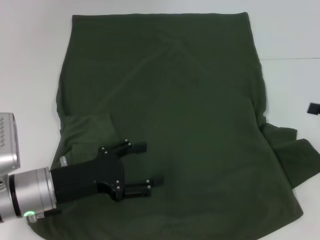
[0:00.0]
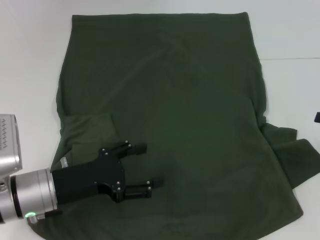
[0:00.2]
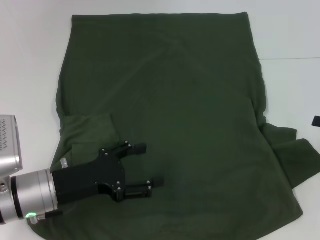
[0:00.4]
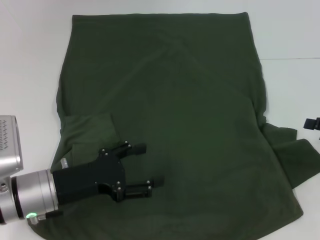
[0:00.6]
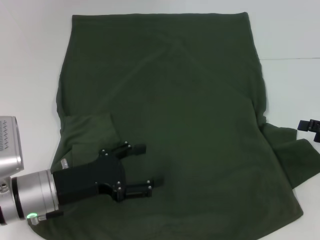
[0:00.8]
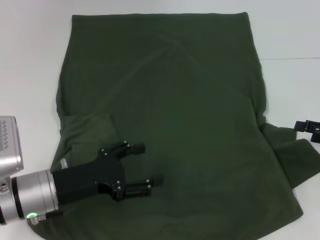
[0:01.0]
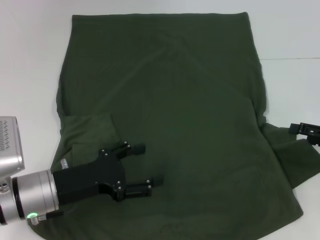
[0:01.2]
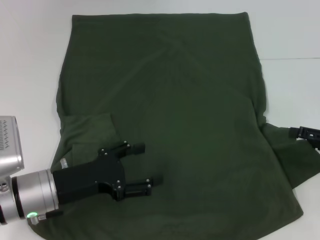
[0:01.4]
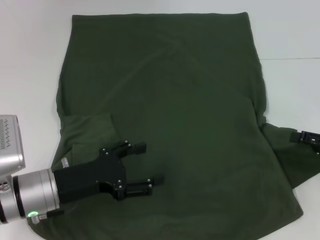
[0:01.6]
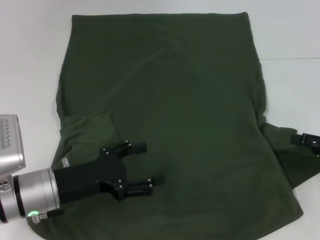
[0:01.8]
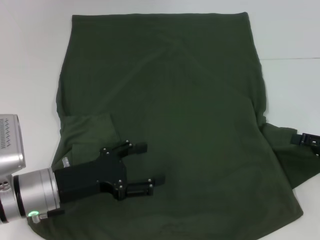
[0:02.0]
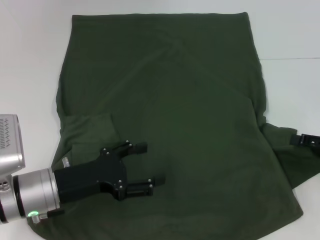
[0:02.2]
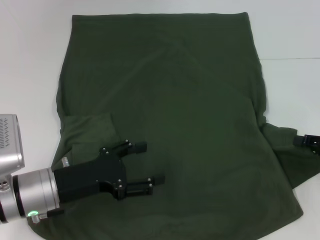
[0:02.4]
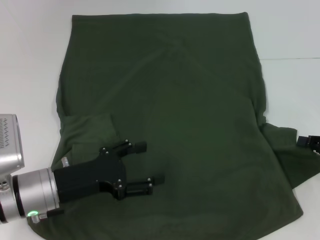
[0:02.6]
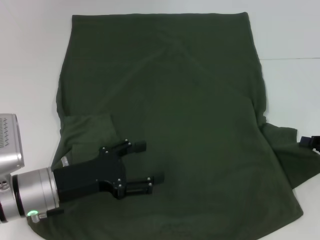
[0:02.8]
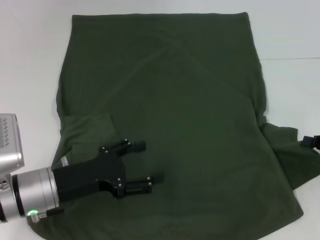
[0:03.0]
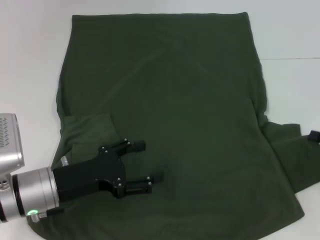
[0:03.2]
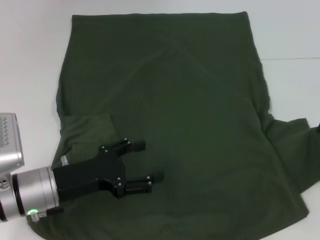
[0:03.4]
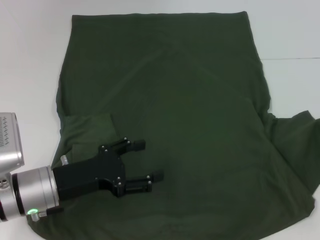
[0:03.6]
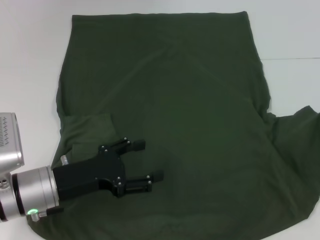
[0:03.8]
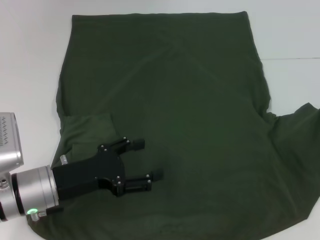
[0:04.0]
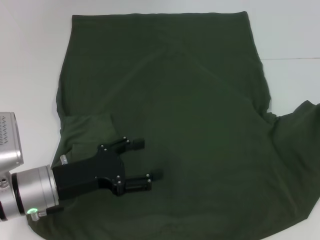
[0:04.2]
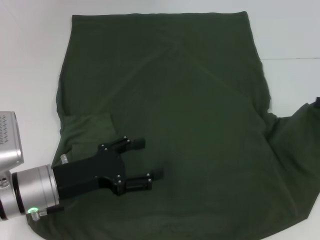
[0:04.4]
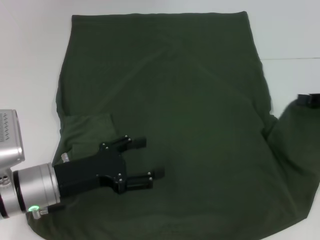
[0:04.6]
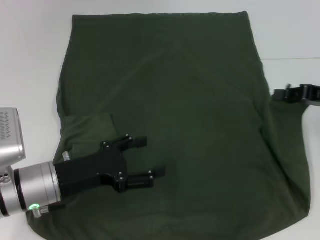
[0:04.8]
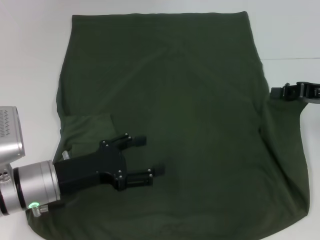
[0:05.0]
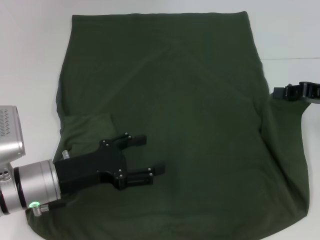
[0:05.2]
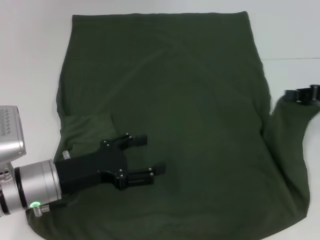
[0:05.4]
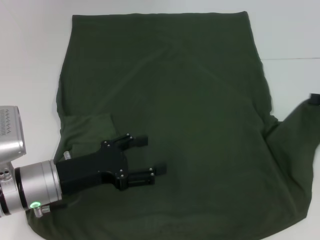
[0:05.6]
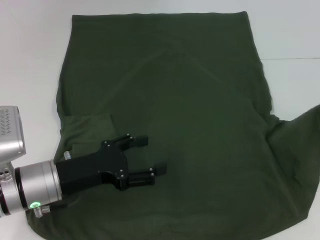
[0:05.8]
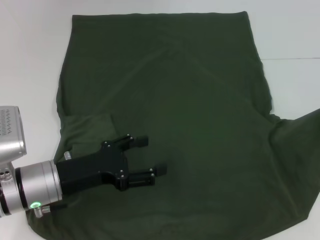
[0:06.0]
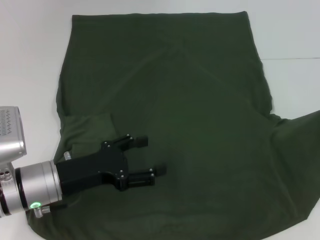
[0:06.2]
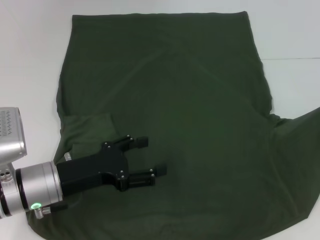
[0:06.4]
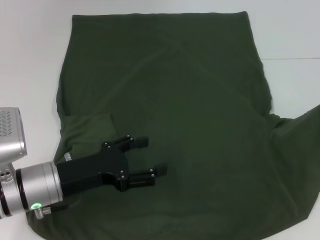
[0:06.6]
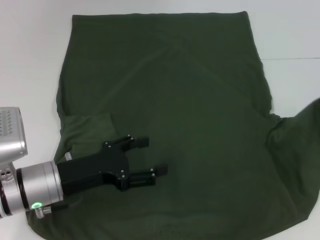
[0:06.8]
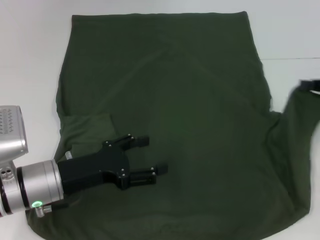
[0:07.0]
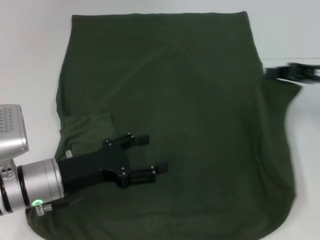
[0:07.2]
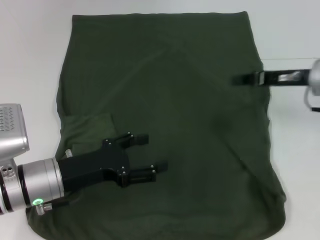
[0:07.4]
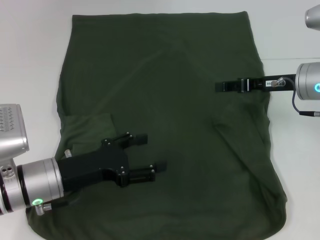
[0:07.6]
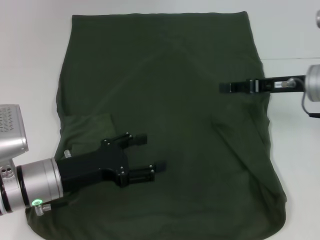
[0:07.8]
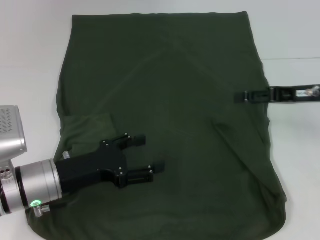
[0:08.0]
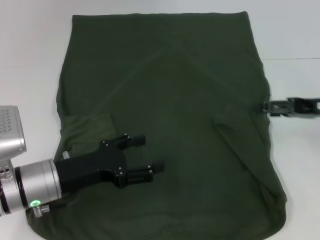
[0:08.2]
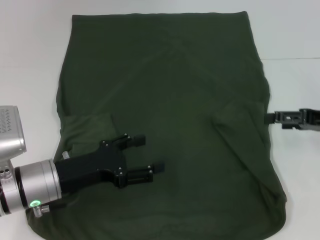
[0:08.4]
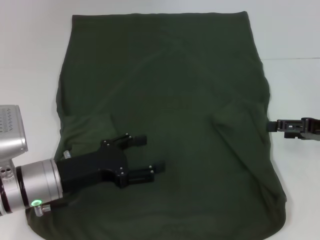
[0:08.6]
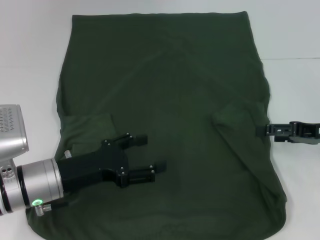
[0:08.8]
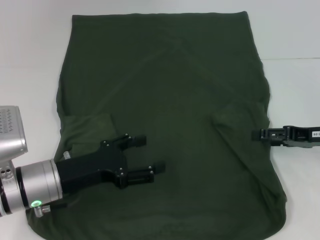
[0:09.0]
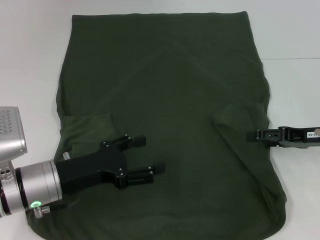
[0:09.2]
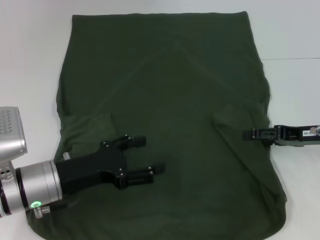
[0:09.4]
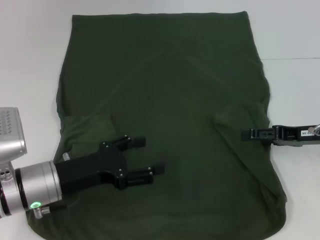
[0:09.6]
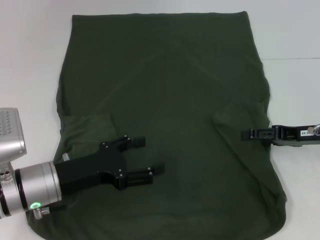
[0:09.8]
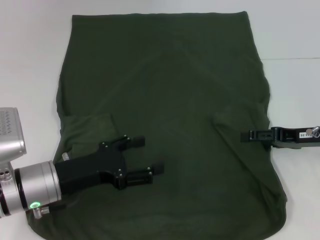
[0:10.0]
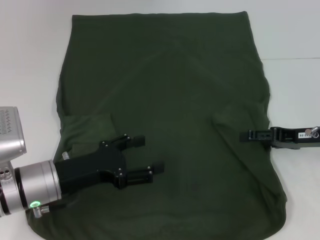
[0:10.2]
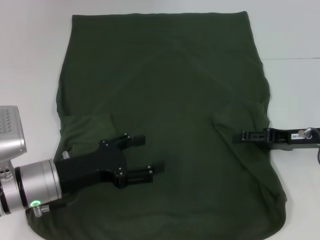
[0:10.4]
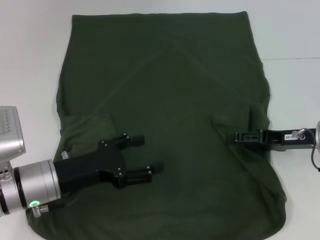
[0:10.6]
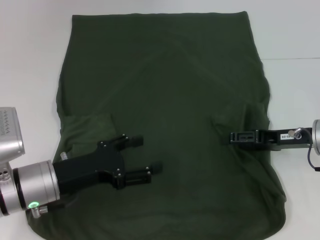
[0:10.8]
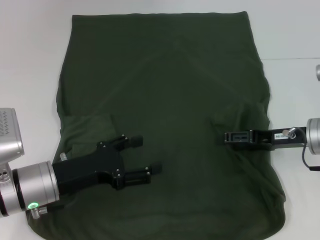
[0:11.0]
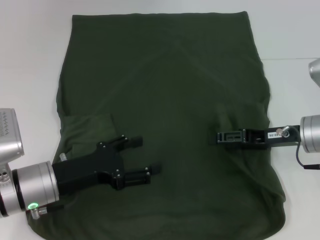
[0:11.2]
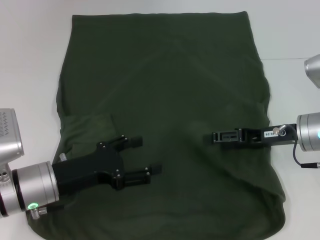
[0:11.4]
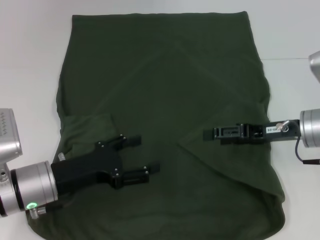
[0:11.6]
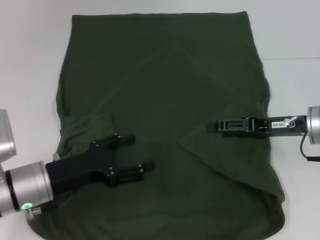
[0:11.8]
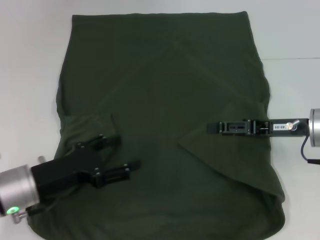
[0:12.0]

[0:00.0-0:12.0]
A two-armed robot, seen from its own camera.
Step, 0:00.0 to 0:11.4: Fold the bottom right sleeve with your right hand.
0:00.0 to 0:01.6: There are only small adjustments of the grippers.
0:03.0 to 0:04.4: The right gripper shifts some 5 cm upward.
0:04.4 to 0:06.0: The right gripper moves some 5 cm to the left and comes back.
0:06.0 to 0:07.6: The right gripper is displaced to the left and forward by roughly 20 cm.
0:07.6 to 0:09.0: The right gripper is displaced to the right and backward by some 10 cm, and opens its fingers.
0:09.0 to 0:10.4: The grippers stay close to where they were, moving slightly.
0:10.4 to 0:12.0: The grippers stay close to where they were, moving slightly.

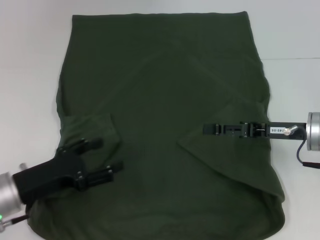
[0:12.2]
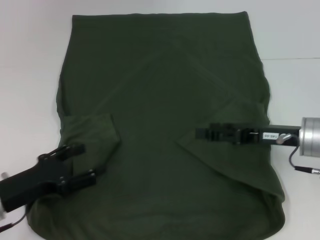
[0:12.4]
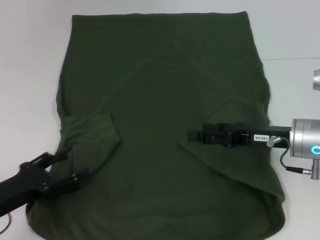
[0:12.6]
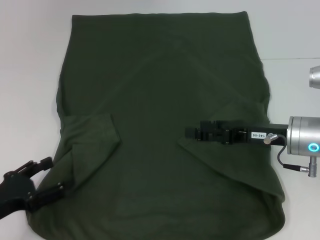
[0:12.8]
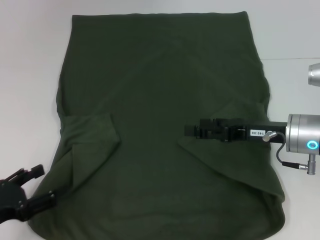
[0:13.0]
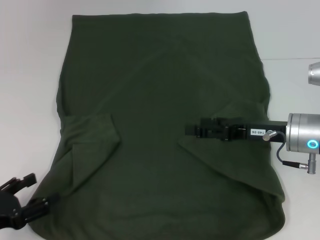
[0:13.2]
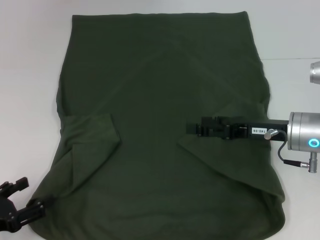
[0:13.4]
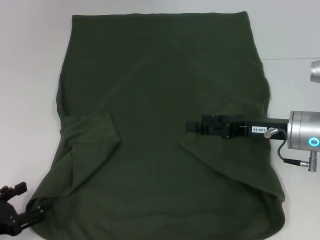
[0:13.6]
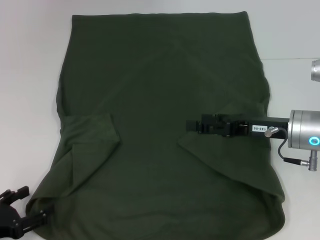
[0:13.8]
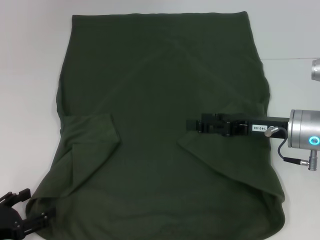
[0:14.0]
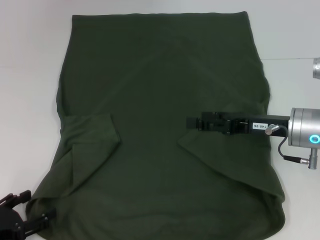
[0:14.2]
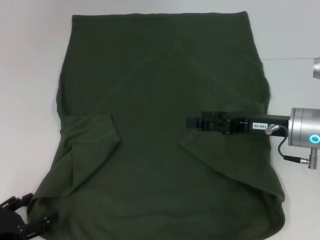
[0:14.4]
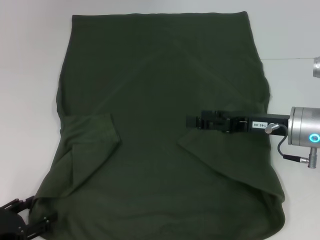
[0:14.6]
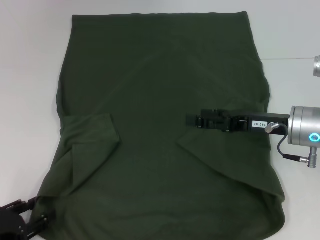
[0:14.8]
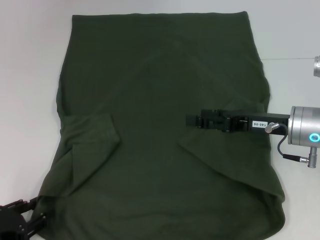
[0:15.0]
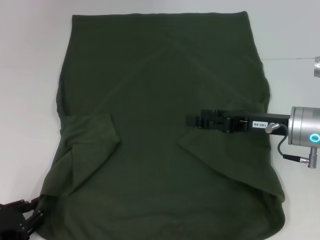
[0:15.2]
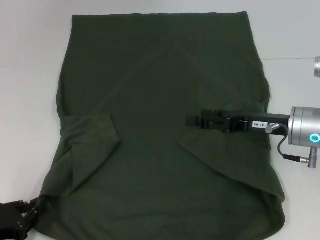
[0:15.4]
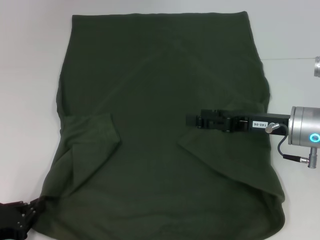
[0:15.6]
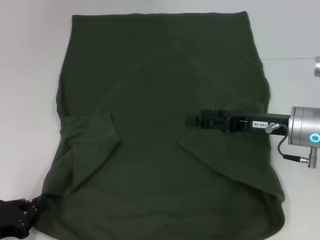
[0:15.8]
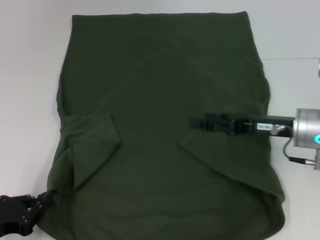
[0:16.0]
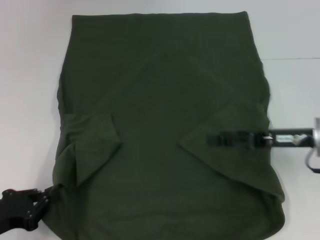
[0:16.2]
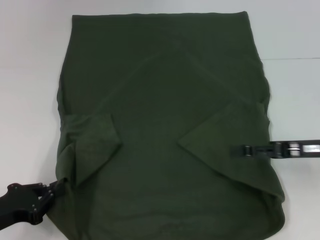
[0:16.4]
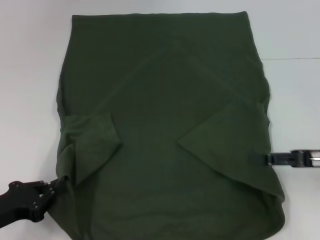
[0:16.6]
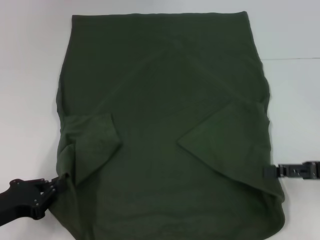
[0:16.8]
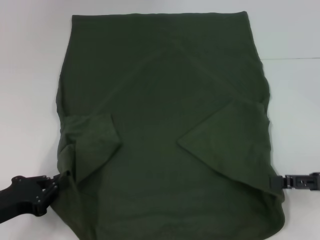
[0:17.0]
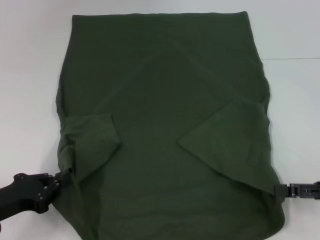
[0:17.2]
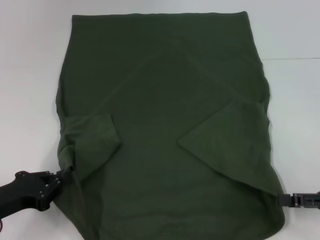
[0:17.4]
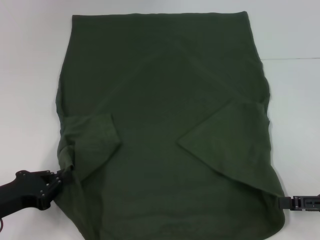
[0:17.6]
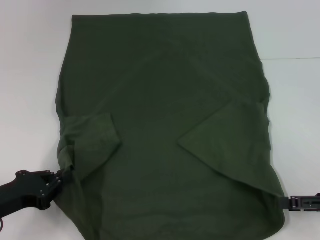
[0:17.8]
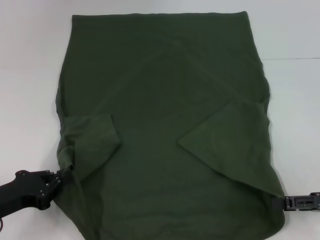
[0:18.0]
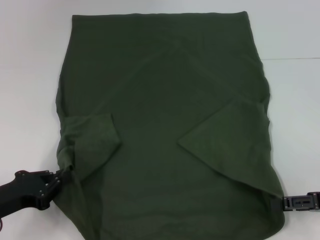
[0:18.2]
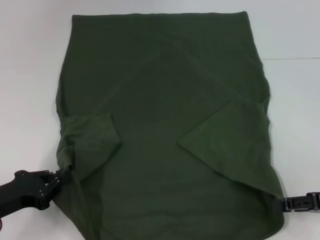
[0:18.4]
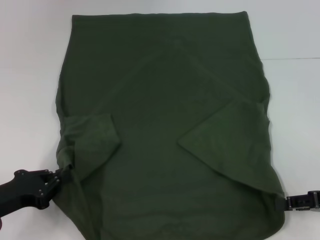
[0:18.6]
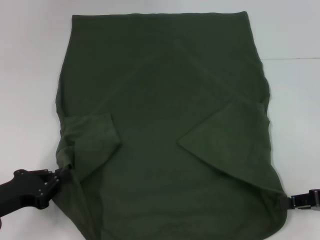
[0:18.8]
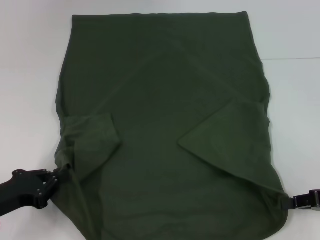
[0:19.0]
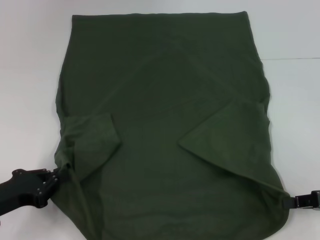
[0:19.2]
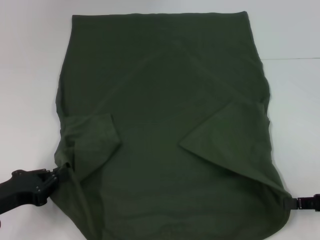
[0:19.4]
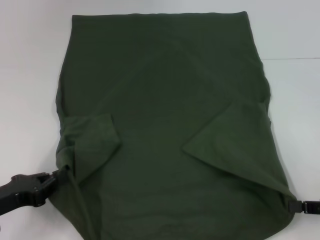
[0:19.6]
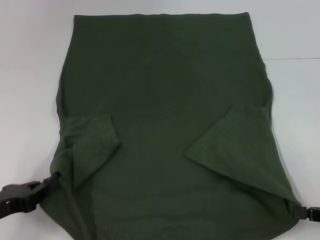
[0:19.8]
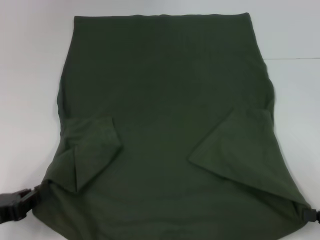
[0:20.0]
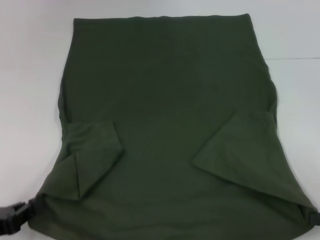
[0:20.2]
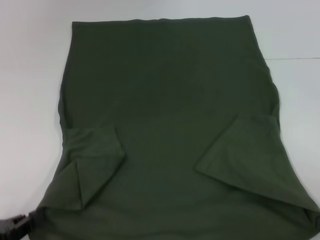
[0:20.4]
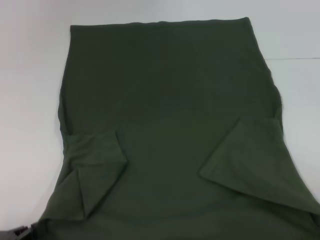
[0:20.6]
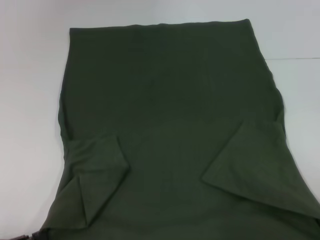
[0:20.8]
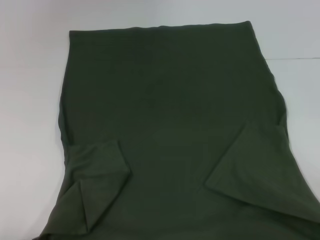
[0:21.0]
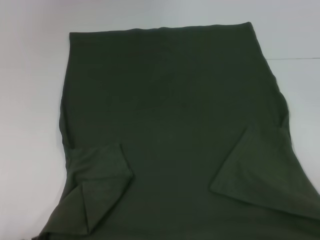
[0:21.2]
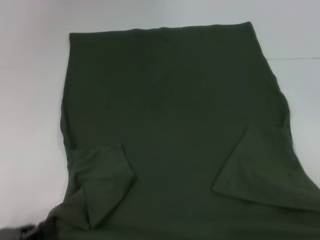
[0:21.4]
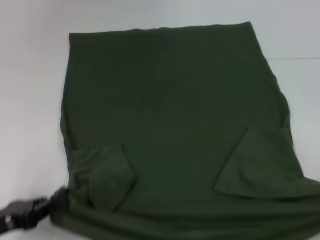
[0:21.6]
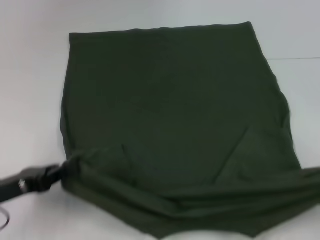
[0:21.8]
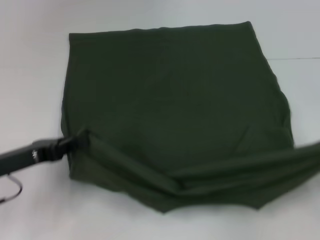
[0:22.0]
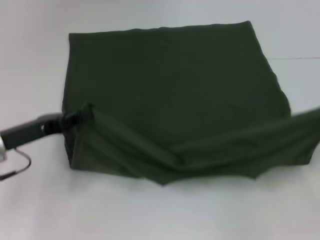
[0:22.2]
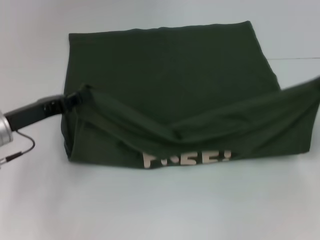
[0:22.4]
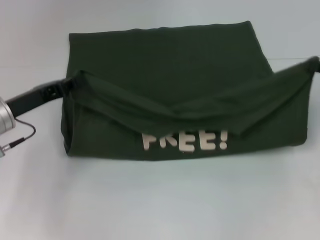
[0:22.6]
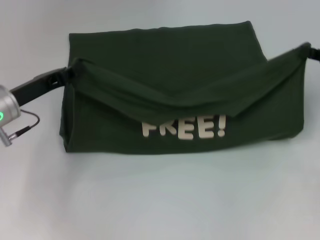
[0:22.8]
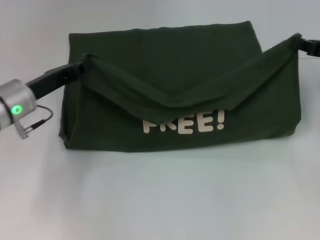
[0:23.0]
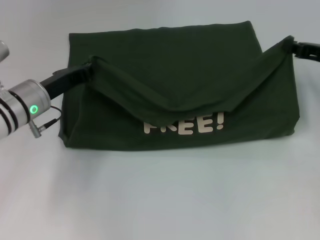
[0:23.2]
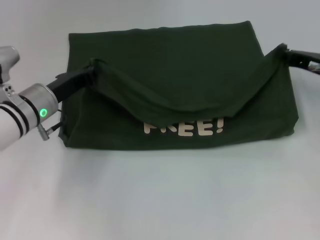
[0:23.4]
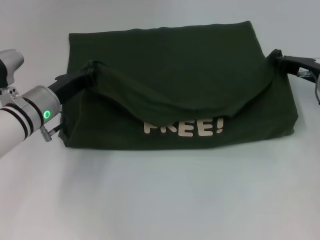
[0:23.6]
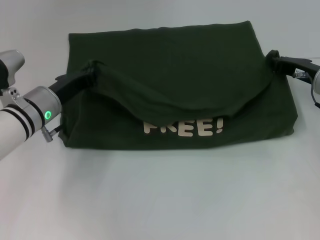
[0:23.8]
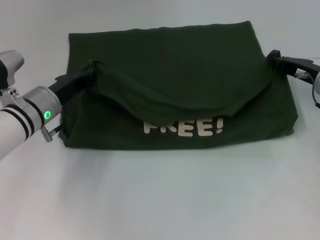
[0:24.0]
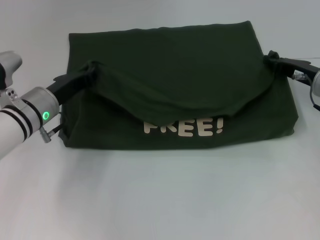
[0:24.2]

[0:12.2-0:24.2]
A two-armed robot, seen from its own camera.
Step, 0:12.2 to 0:15.6: Grab the bottom left corner with your left hand.
Step, 0:15.8 to 0:19.0: Grab the bottom right corner with your right hand.
0:12.2 to 0:13.8: The left gripper goes some 10 cm to the left and backward.
0:13.8 to 0:15.2: The left gripper closes its fingers.
0:15.2 to 0:16.6: The left gripper closes its fingers; the right gripper goes roughly 10 cm to the right and backward.
0:16.6 to 0:18.2: The right gripper ends up roughly 5 cm from where it was.
0:18.2 to 0:19.8: The right gripper closes.
0:19.8 to 0:21.2: Both grippers move backward, approximately 10 cm.
0:21.2 to 0:22.6: Both grippers travel together forward, roughly 20 cm.
0:22.6 to 0:24.2: The left gripper moves to the right, approximately 5 cm; the right gripper is displaced to the left, forward and downward by approximately 10 cm.
